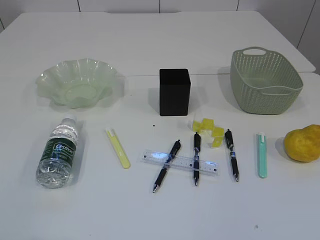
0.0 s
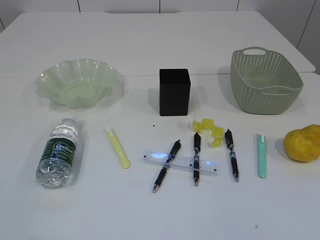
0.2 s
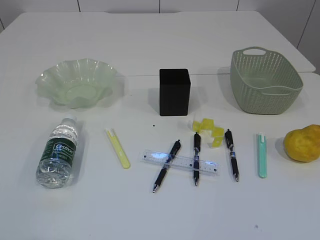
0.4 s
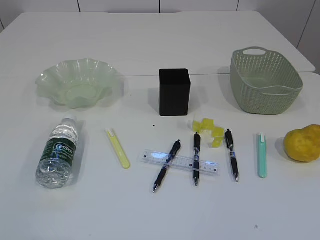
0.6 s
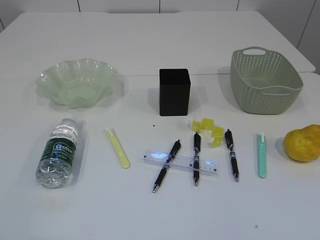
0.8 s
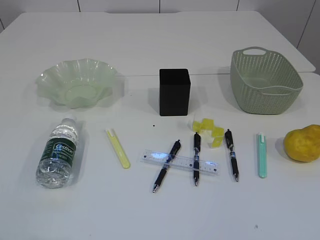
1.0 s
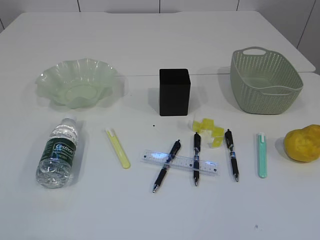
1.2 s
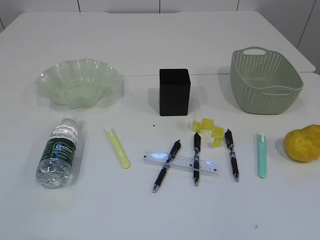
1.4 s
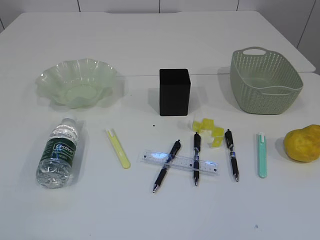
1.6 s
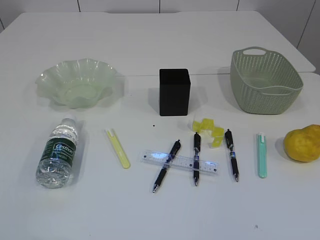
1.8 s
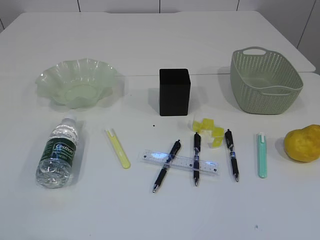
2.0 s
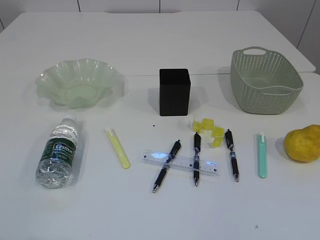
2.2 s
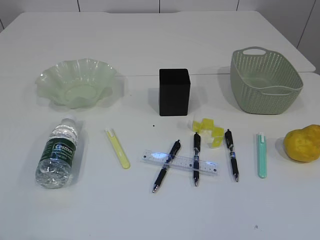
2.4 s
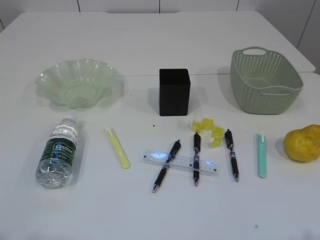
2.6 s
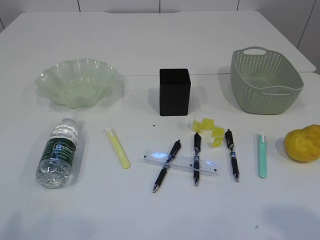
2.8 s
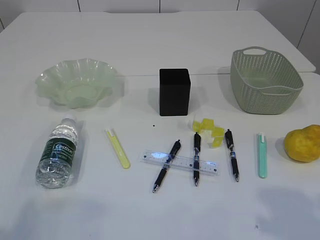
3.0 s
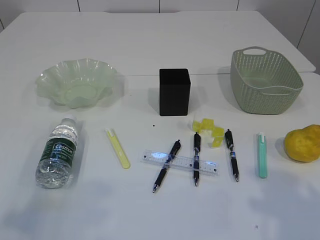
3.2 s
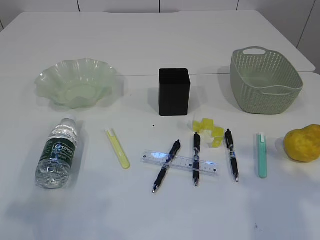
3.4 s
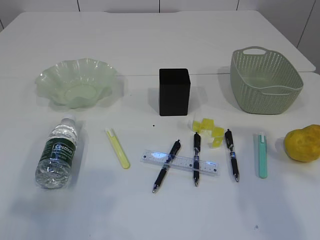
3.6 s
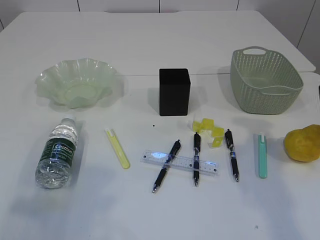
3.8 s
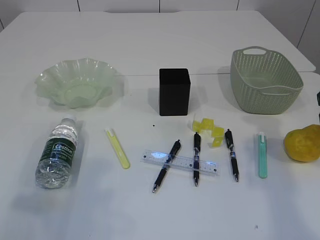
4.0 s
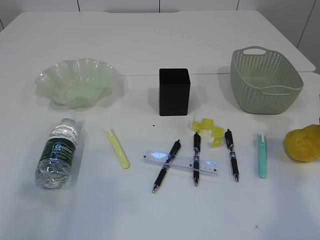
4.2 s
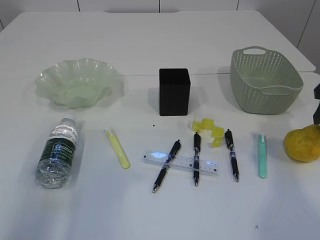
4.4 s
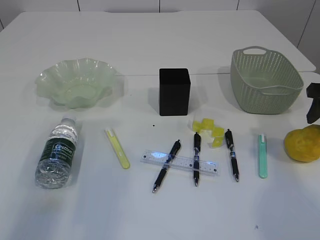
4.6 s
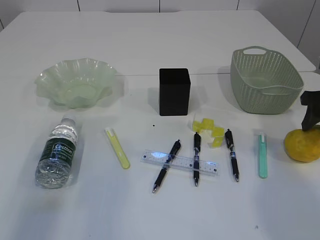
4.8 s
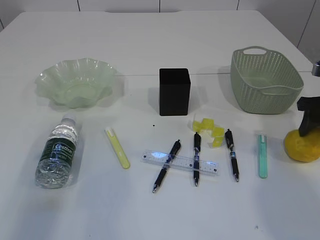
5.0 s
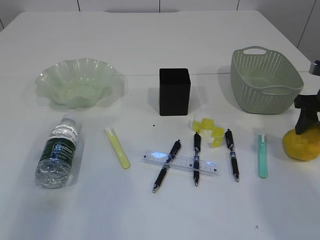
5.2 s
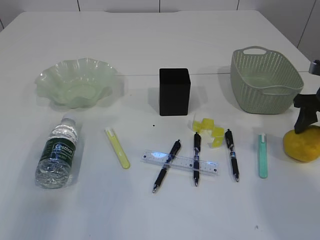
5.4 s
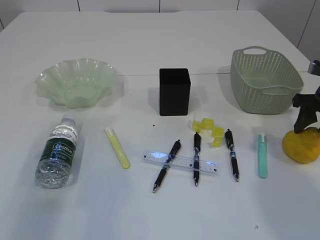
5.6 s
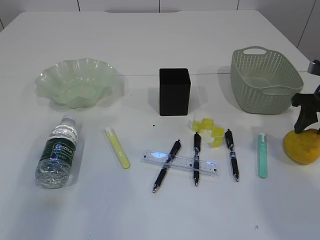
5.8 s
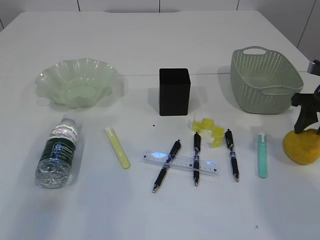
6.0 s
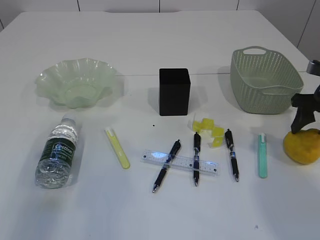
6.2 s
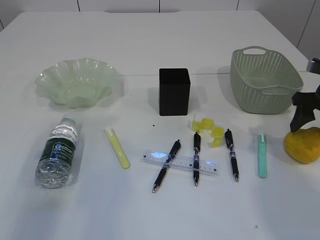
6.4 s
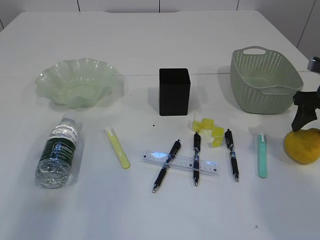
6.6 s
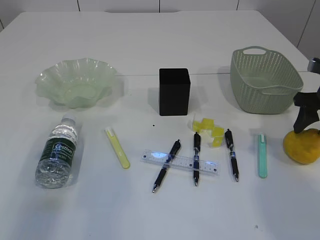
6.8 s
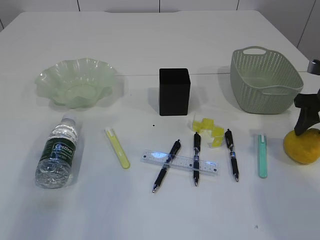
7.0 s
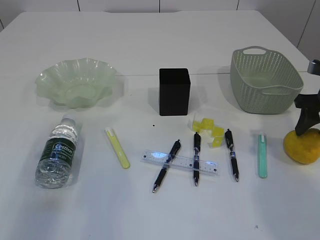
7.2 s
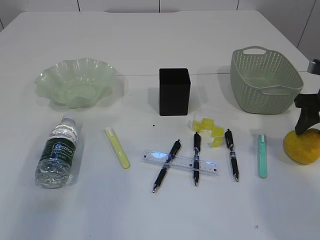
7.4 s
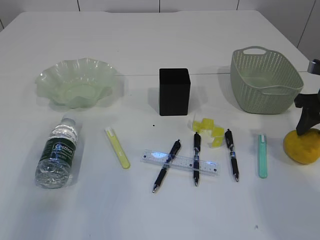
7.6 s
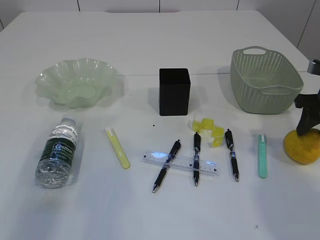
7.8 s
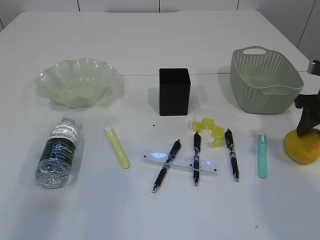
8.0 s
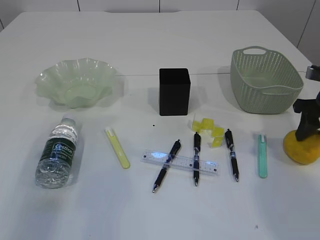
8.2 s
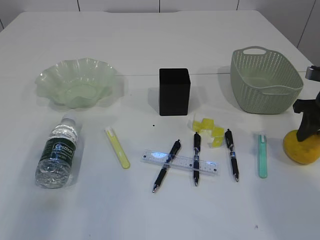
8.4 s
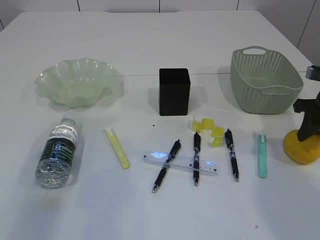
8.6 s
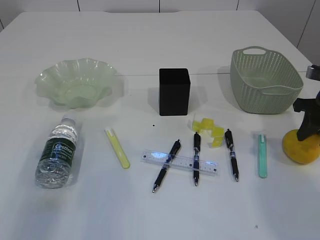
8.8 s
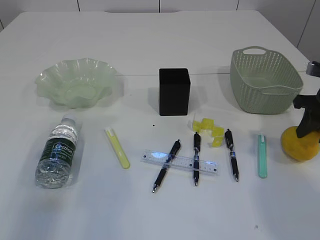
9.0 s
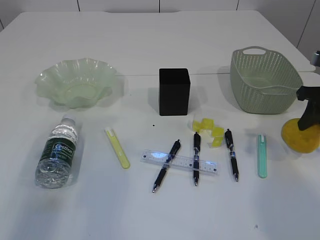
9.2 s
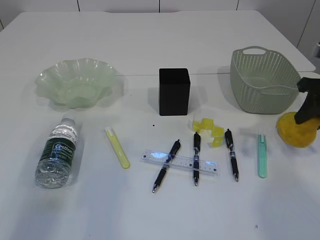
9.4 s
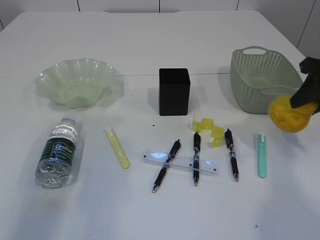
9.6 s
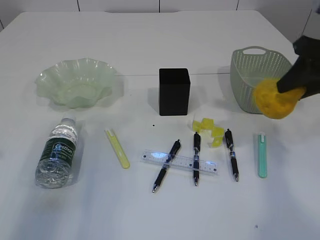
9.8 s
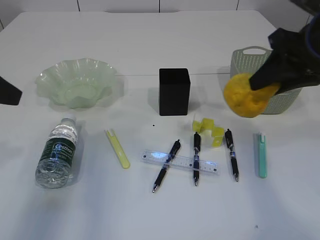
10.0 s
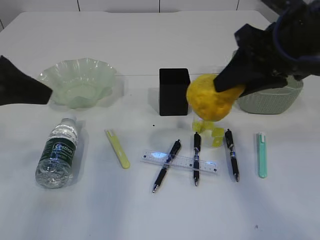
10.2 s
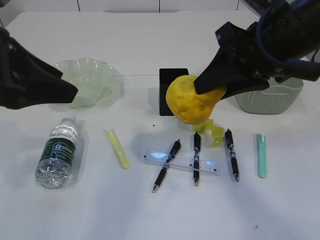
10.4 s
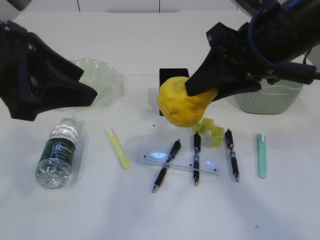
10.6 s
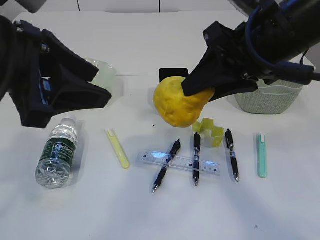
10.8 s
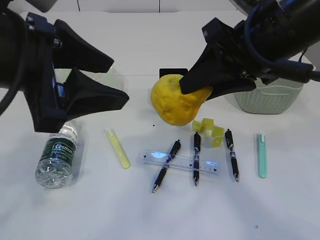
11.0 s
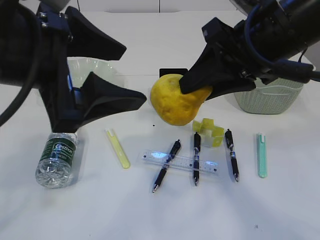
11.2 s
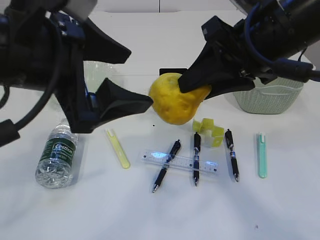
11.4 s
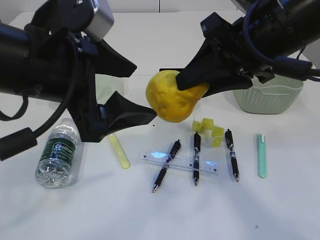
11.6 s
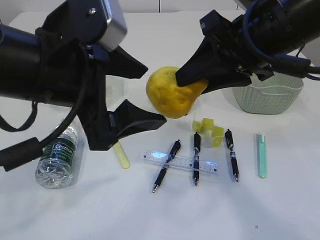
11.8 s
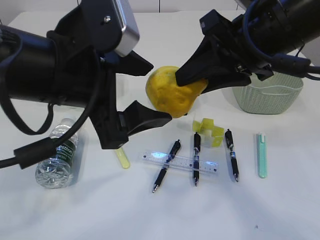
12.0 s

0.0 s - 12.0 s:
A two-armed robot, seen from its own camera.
3.0 s - 4.4 s: The right gripper is displaced forward by approximately 25 cm.
4.4 s - 6.0 s: The right gripper is displaced downward by some 5 cm.
6.0 s - 7.6 s: Neither gripper changes place.
7.6 s - 9.0 s: Both grippers stay about where they are.
9.0 s - 10.4 s: The left gripper shifts roughly 10 cm to the right; the right gripper travels to the left and upward by roughly 20 cm.
10.4 s - 12.0 s: The left gripper heads to the right, covering about 10 cm, and opens its fingers.

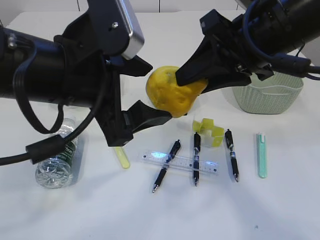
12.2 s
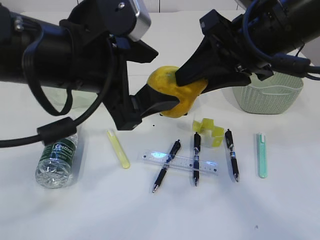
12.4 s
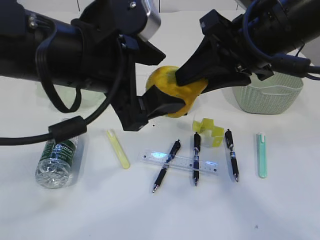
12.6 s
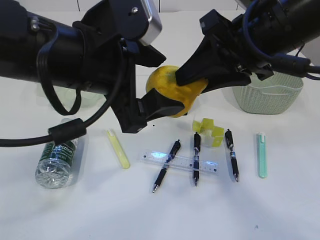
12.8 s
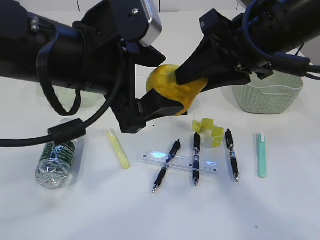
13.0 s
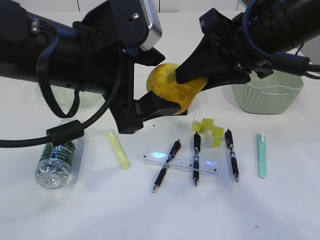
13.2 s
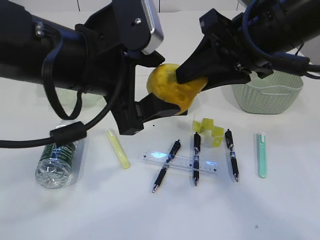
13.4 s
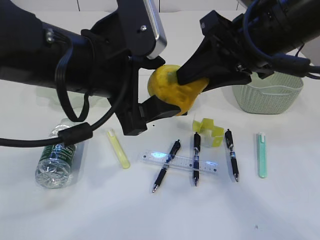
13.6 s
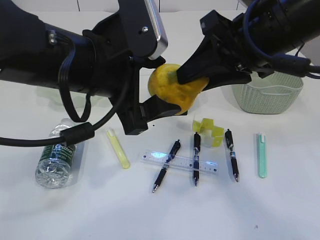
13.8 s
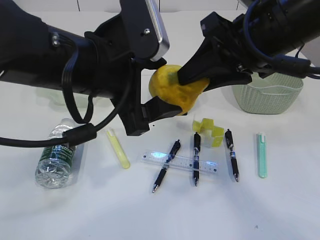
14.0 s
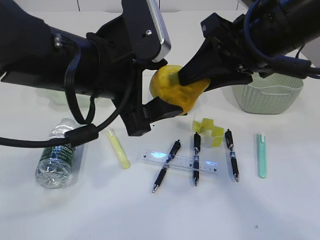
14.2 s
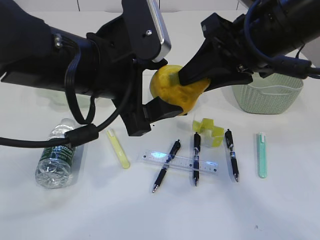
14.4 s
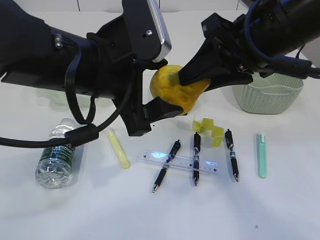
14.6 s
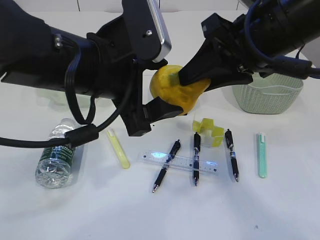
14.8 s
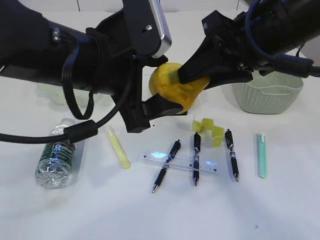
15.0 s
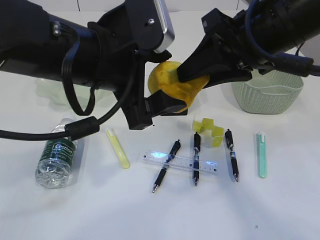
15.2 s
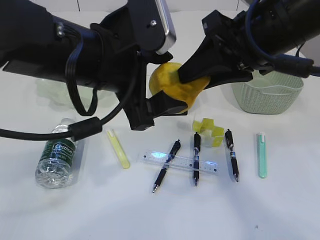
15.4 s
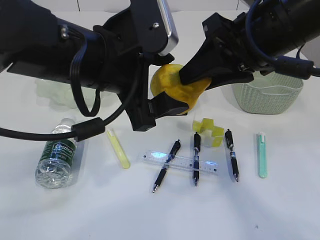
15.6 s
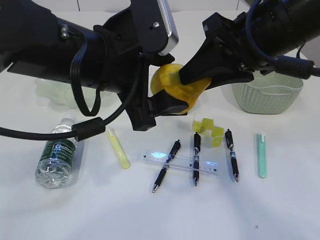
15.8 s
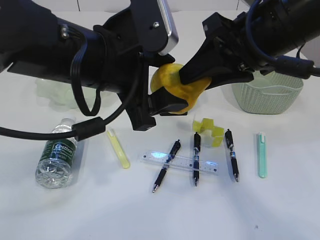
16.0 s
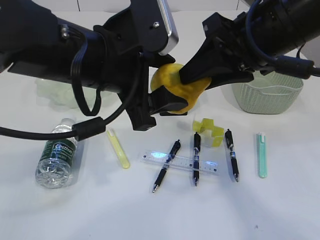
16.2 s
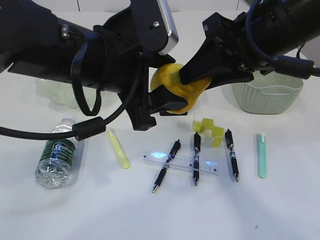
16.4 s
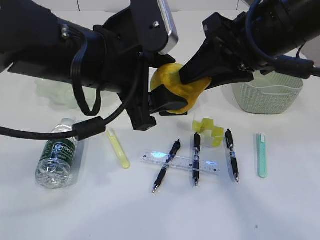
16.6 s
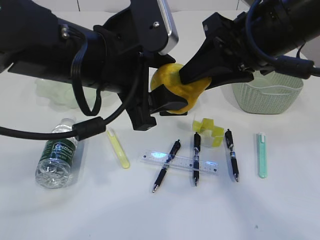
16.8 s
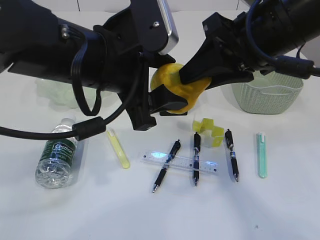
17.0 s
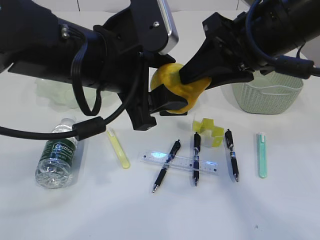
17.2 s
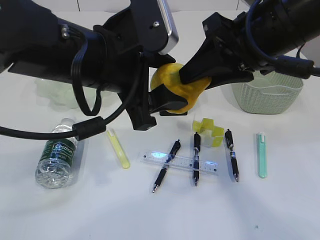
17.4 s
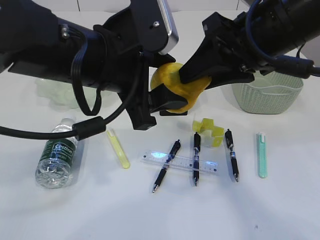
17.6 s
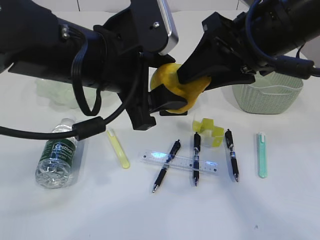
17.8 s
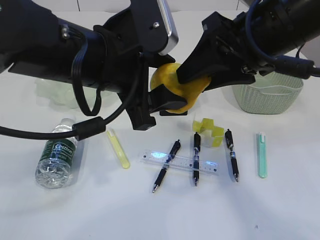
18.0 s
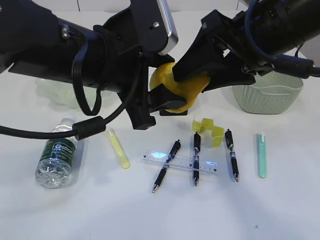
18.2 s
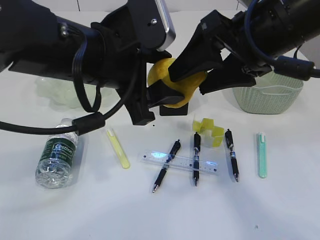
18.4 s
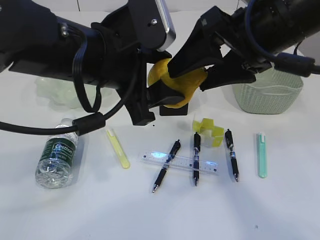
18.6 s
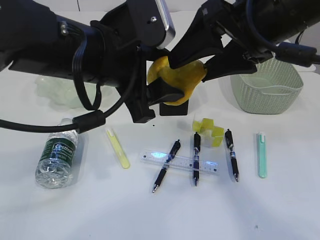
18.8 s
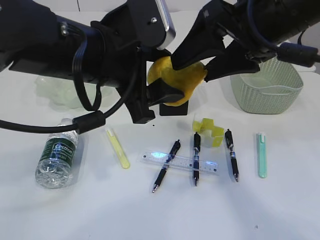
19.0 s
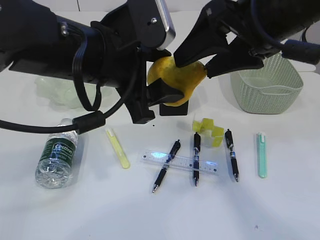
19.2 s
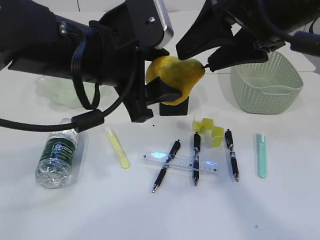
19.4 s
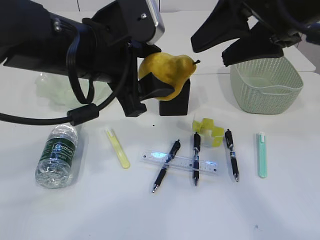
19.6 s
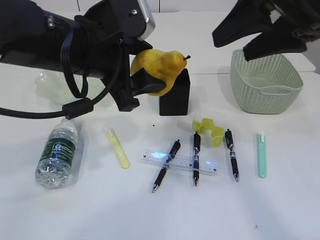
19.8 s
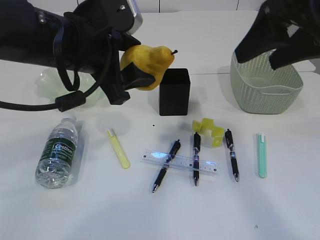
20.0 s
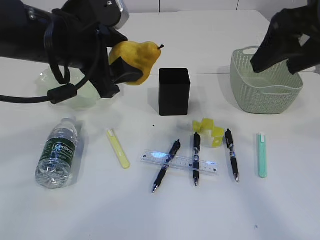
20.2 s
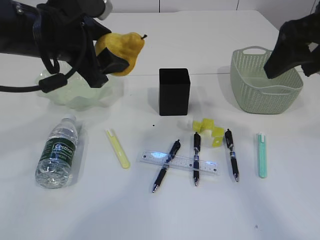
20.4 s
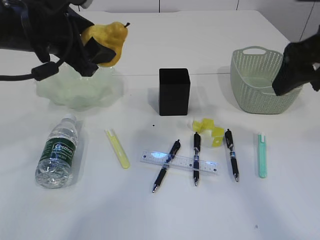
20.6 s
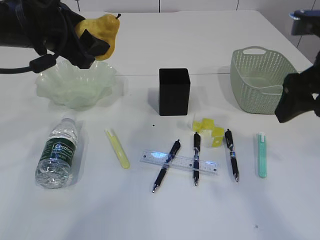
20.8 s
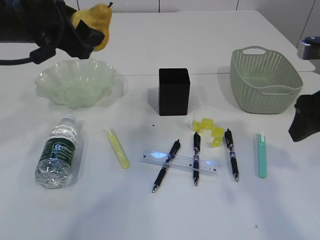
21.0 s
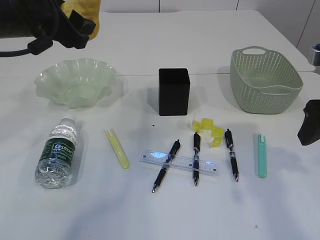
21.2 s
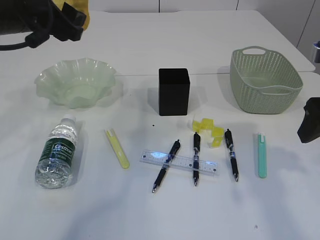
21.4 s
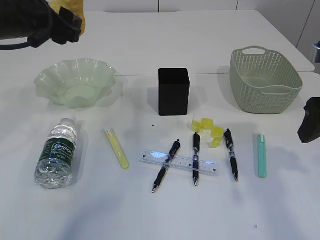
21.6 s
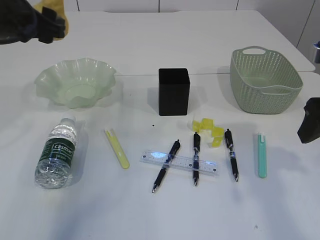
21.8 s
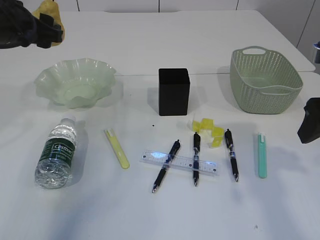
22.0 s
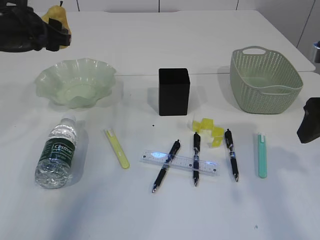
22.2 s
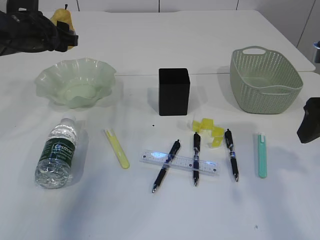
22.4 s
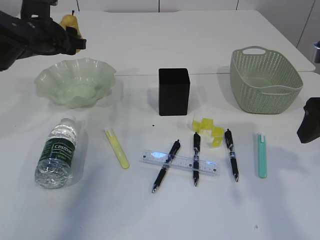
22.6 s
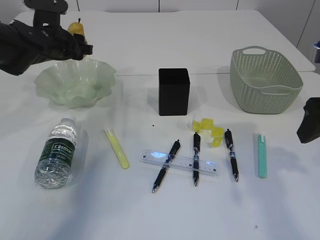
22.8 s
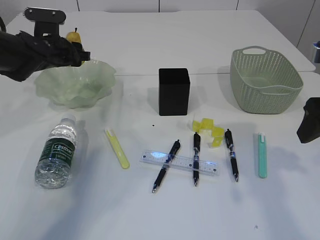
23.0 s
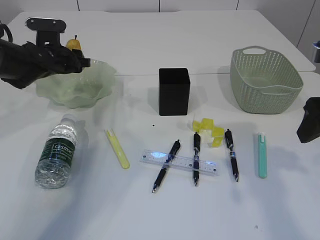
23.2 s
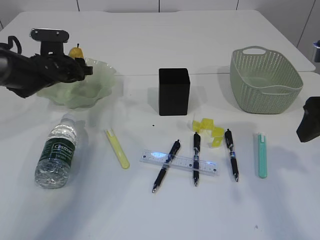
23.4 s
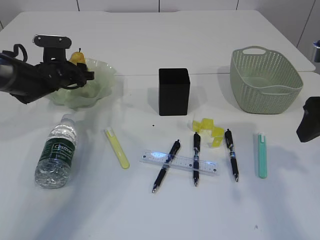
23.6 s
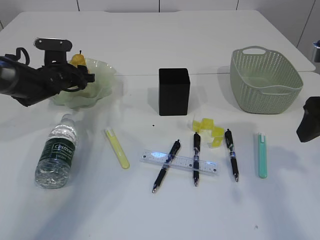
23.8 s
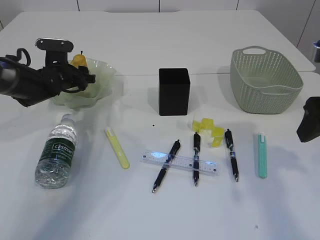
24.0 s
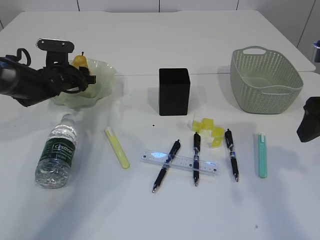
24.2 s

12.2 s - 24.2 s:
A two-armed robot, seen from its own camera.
Step, 12.2 s - 19.4 s: Hand over the pear.
12.2 s - 13.8 s: The grippers stay close to where they were, moving slightly.
13.8 s - 16.6 s: The two grippers keep their place.
16.6 s - 18.2 s: The right gripper opens its fingers.
18.2 s - 19.8 s: The right gripper shifts by some 5 cm.
19.8 s - 21.2 s: The right gripper heads downward and to the right, covering roughly 15 cm; the left gripper is displaced to the left and forward by roughly 10 cm.
21.2 s - 22.6 s: The left gripper is displaced forward and downward by about 15 cm.
22.6 s - 24.2 s: The left gripper is displaced downward and forward by about 15 cm.
